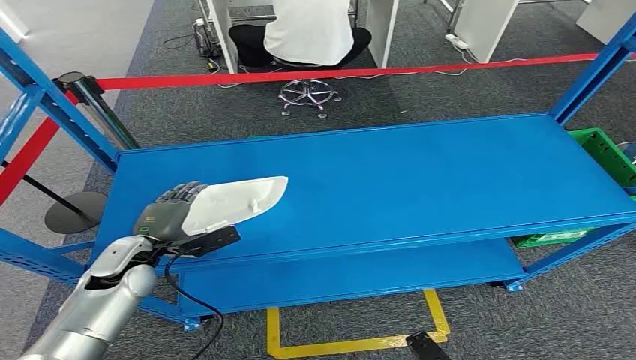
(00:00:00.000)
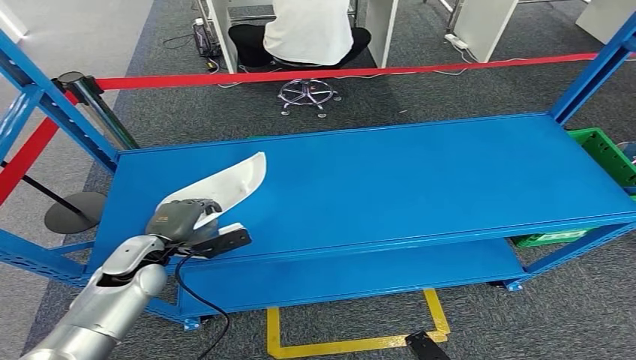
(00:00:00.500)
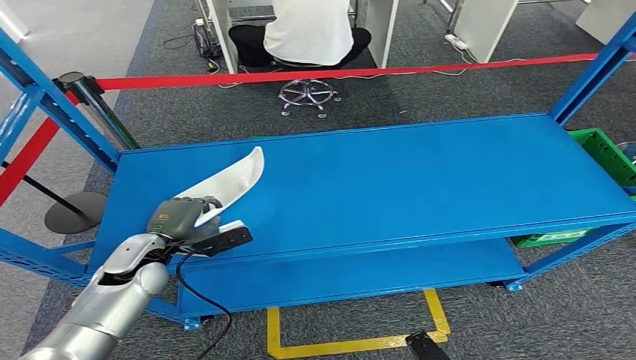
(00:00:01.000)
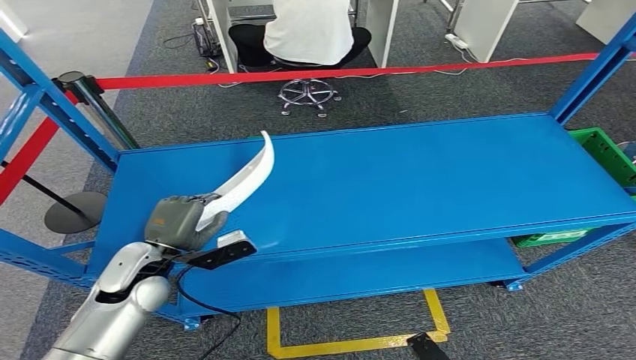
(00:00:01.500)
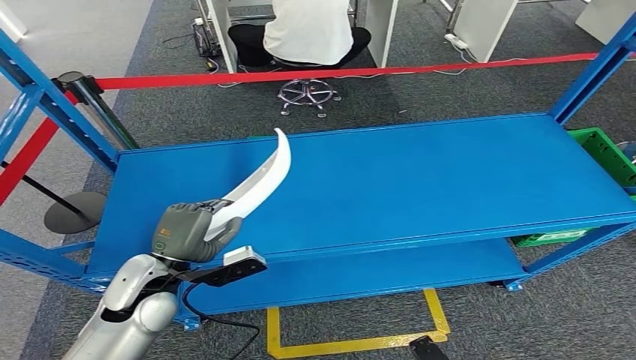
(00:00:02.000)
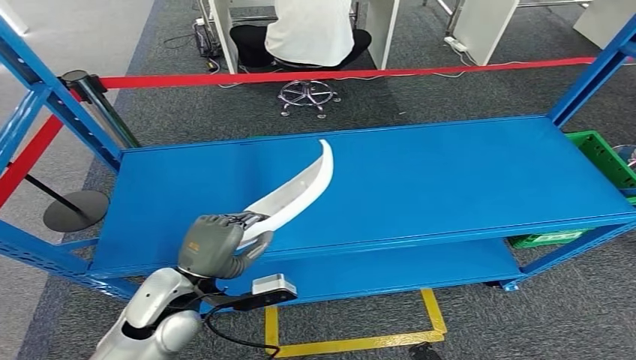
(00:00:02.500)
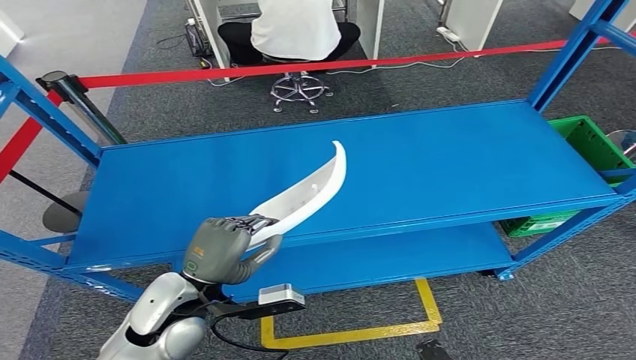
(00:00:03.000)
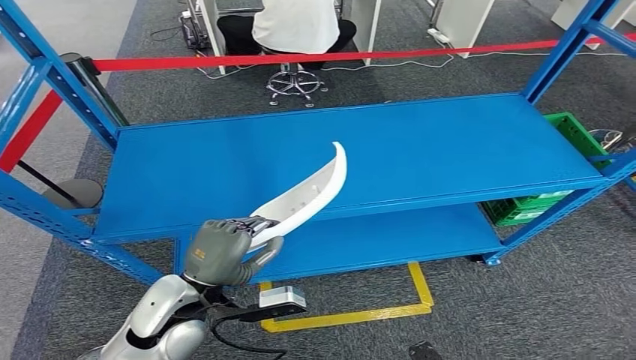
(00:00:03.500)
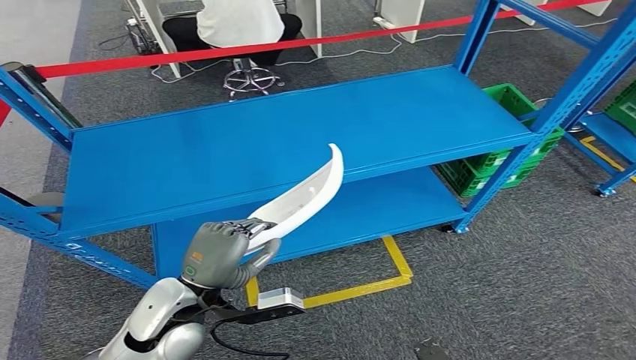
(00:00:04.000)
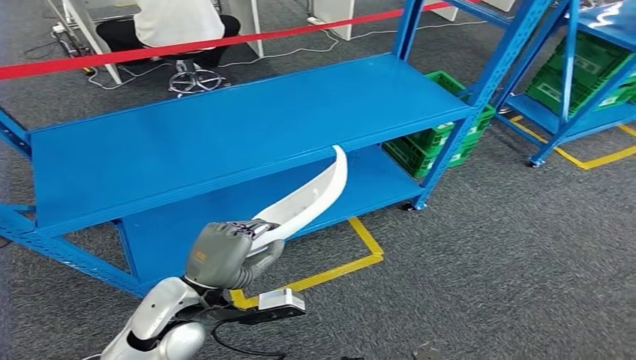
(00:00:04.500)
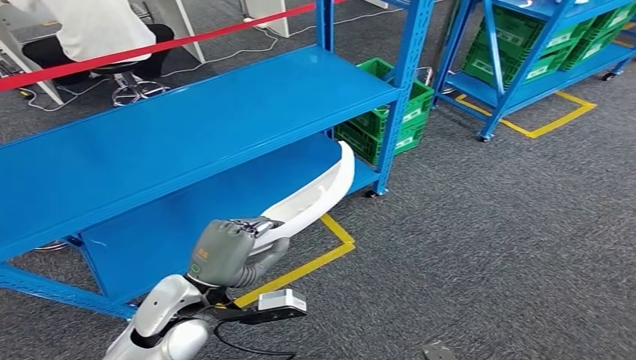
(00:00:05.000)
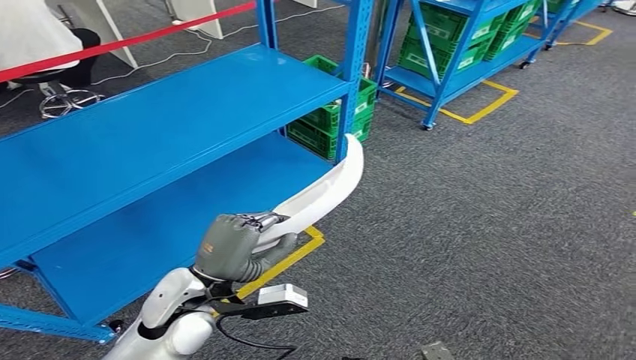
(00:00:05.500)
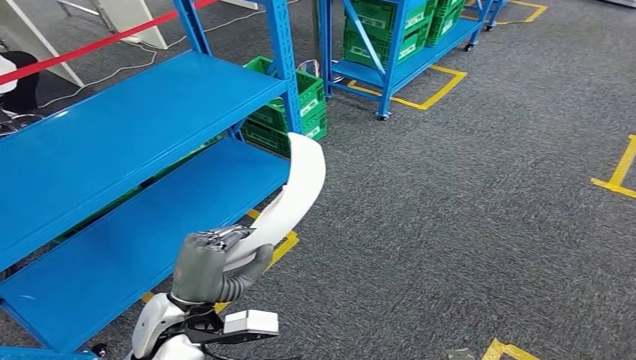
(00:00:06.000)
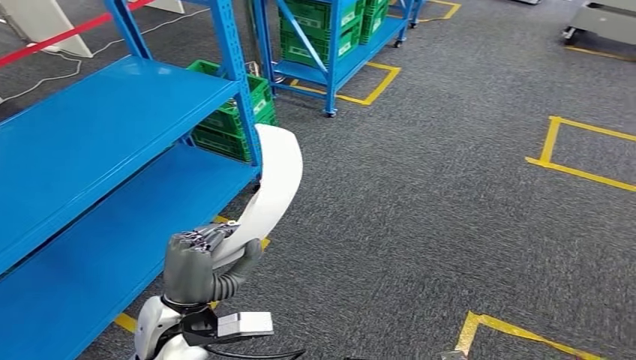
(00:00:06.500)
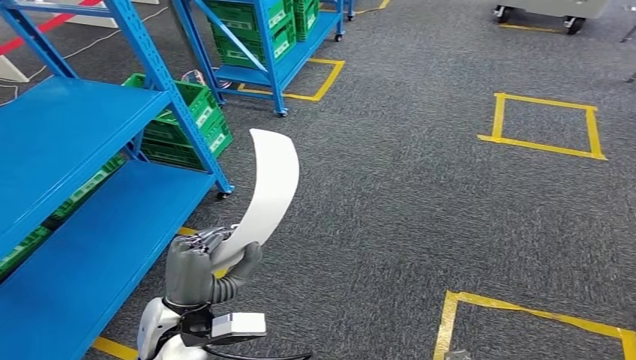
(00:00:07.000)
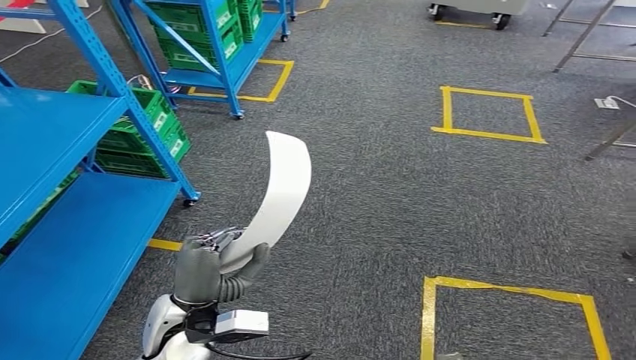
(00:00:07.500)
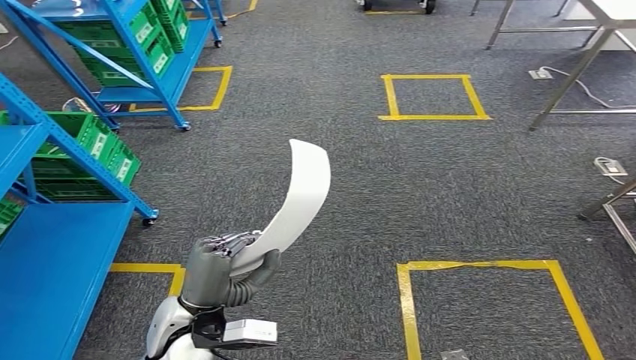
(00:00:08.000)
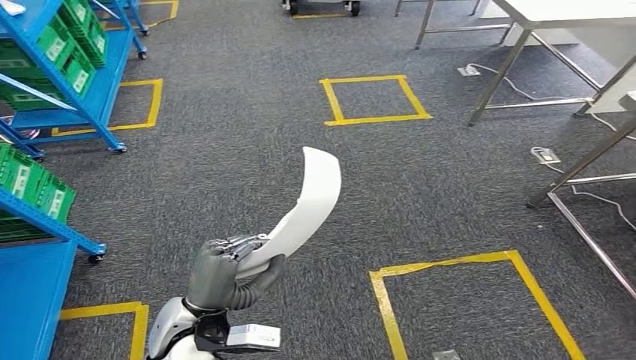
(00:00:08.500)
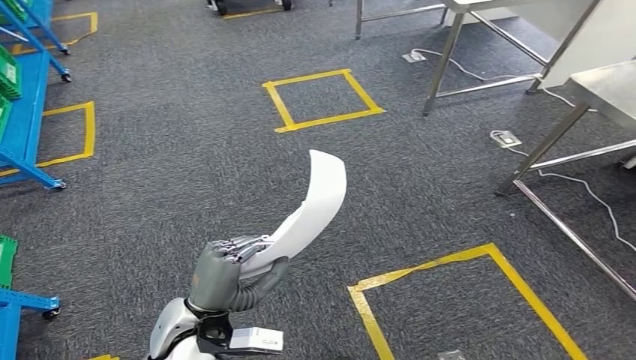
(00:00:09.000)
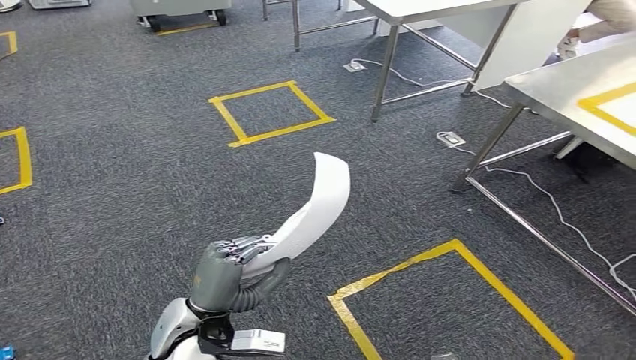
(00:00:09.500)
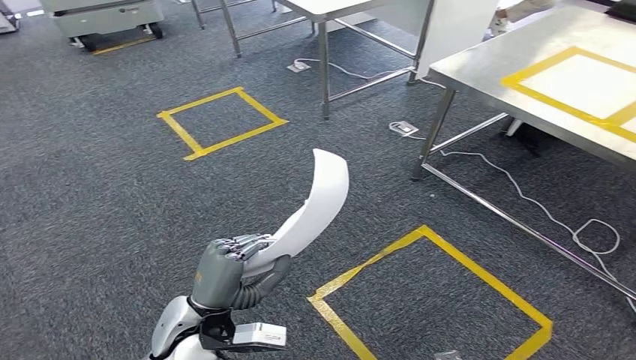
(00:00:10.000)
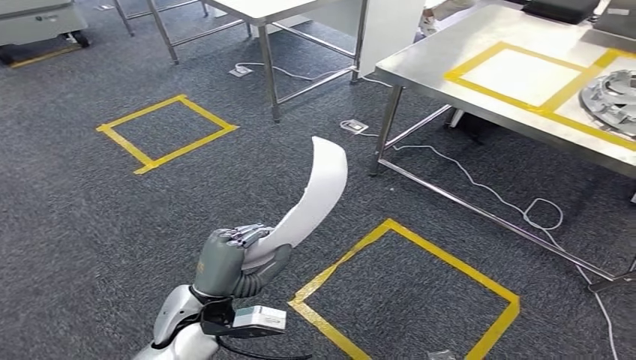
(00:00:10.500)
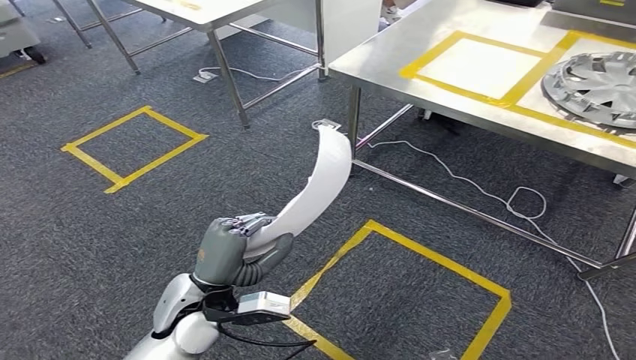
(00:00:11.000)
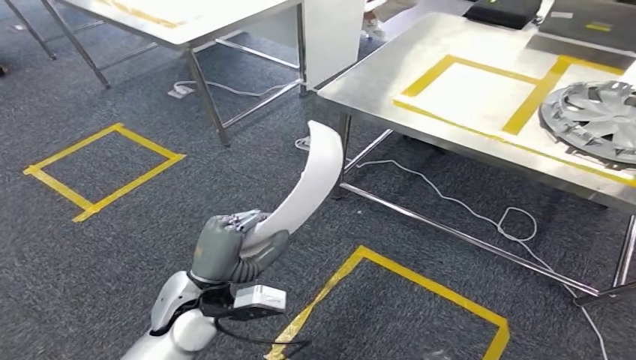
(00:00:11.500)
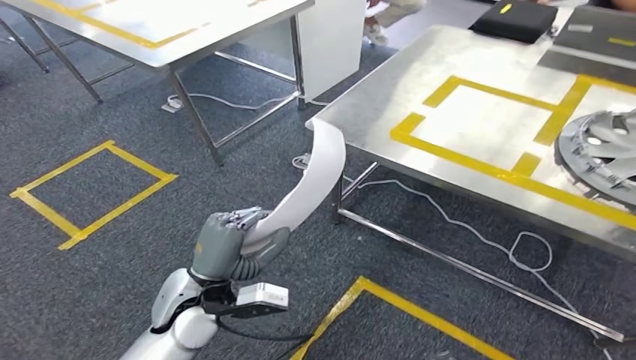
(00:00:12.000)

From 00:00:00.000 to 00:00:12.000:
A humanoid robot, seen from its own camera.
Step, from 00:00:00.000 to 00:00:04.000: Pick up the small parts from the shelf.

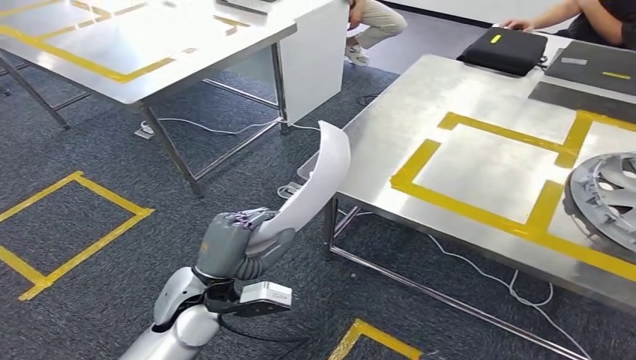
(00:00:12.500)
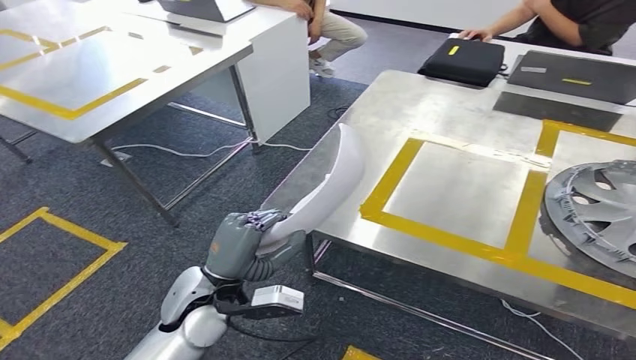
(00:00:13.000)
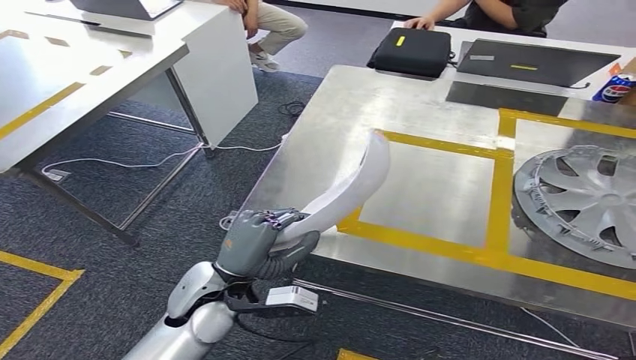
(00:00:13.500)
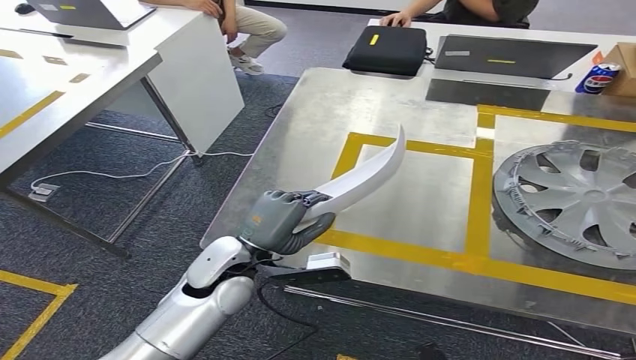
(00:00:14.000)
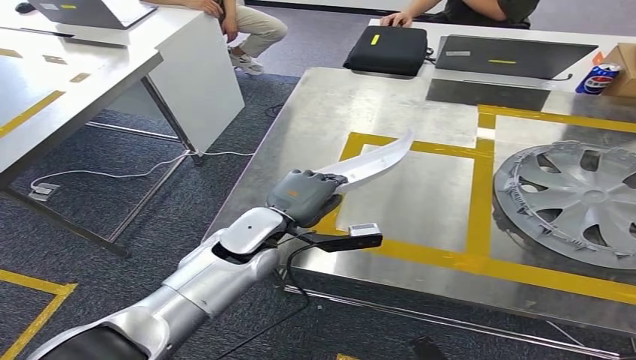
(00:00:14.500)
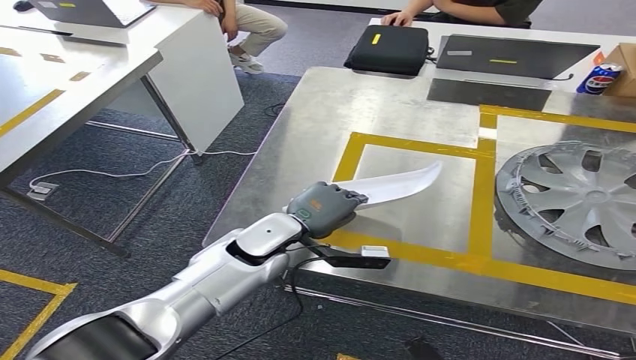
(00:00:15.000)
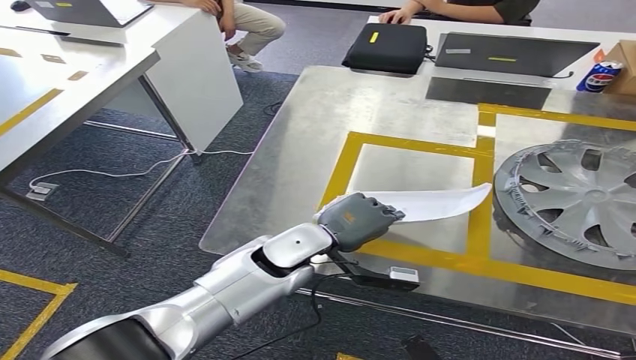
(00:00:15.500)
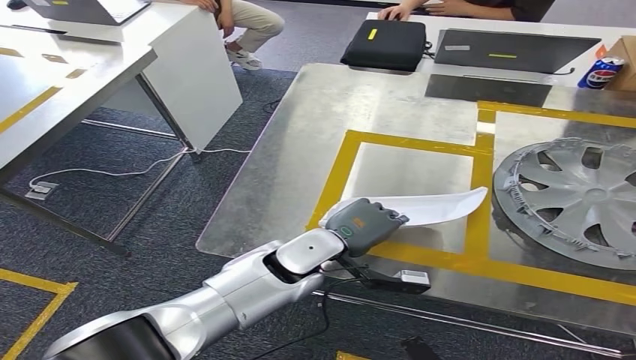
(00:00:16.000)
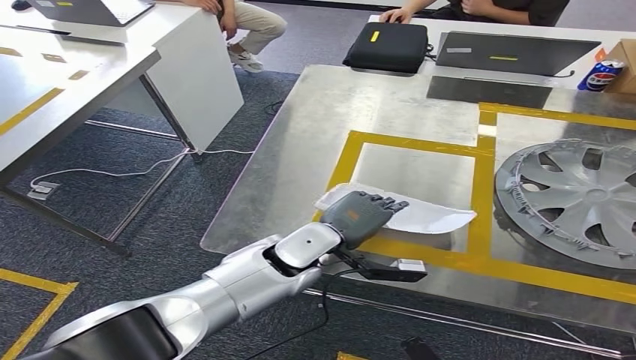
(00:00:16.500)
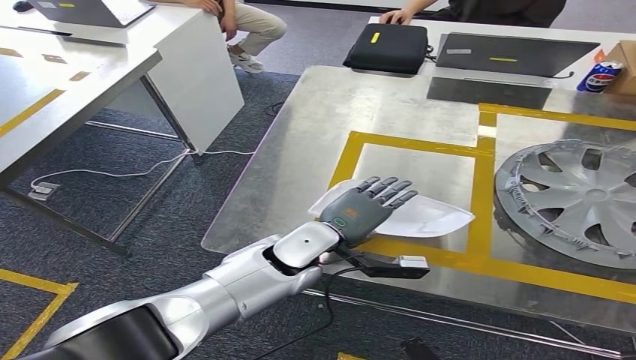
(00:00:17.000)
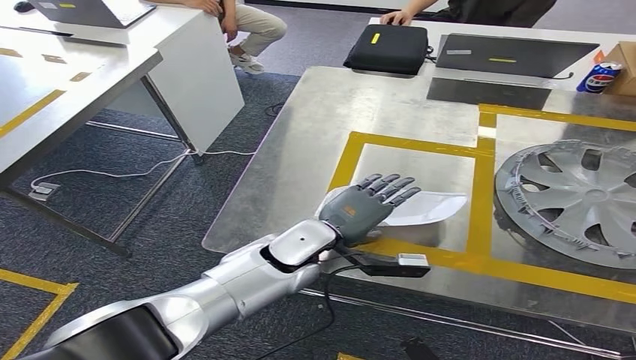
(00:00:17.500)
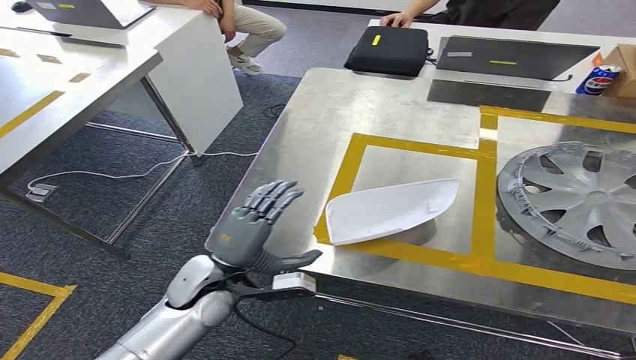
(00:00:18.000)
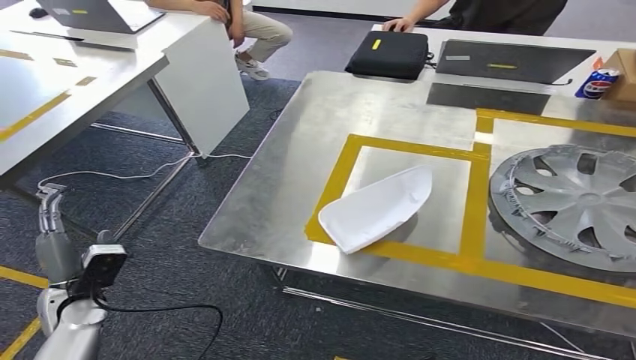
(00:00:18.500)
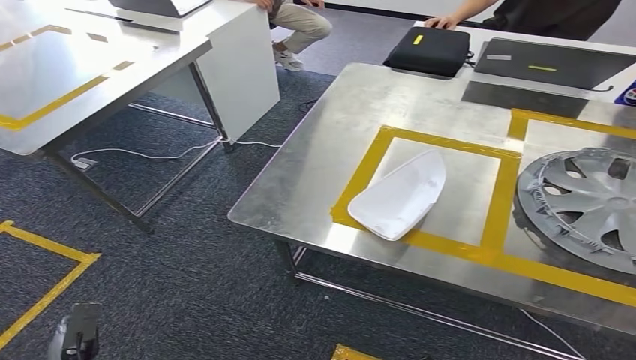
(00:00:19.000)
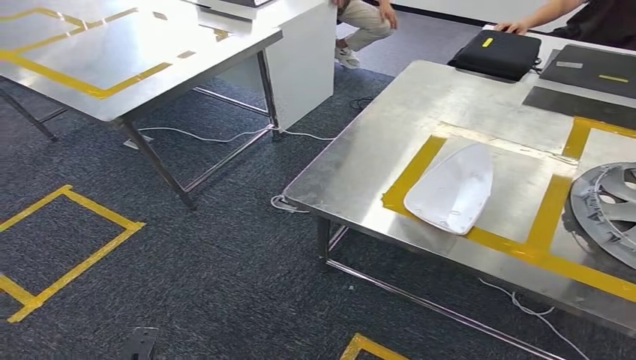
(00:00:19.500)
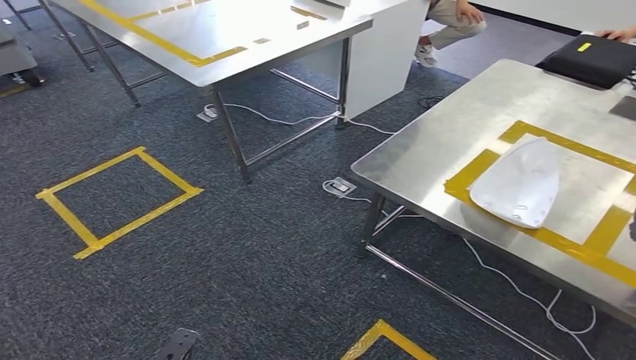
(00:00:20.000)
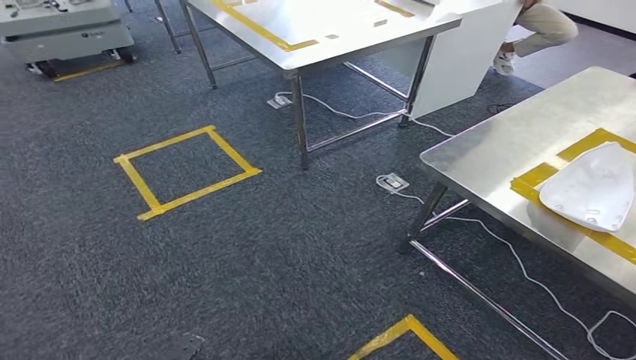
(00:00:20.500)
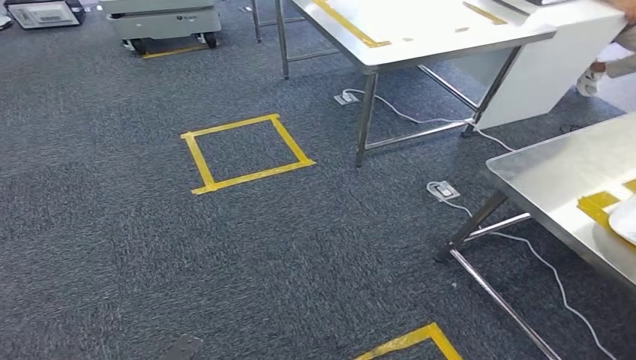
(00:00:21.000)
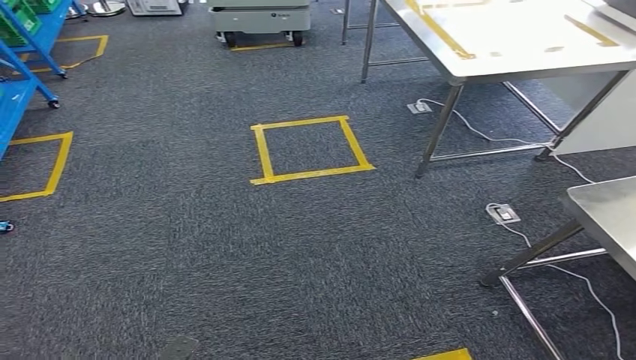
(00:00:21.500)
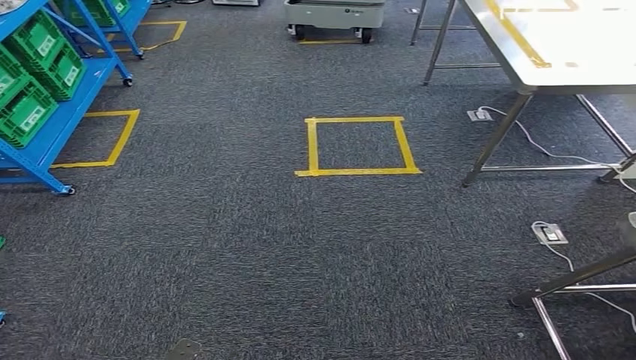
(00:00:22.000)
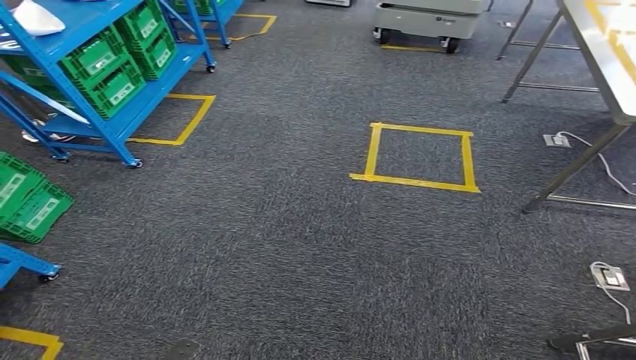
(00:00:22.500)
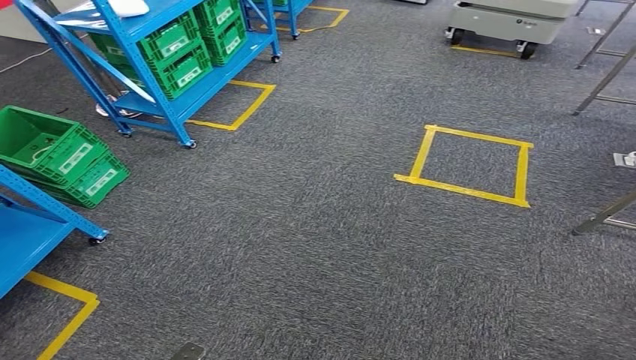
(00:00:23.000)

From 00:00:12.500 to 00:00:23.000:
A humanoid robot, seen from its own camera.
Step, from 00:00:13.500 to 00:00:18.500: Insert the small parts into the corresponding slots on the workbench.
